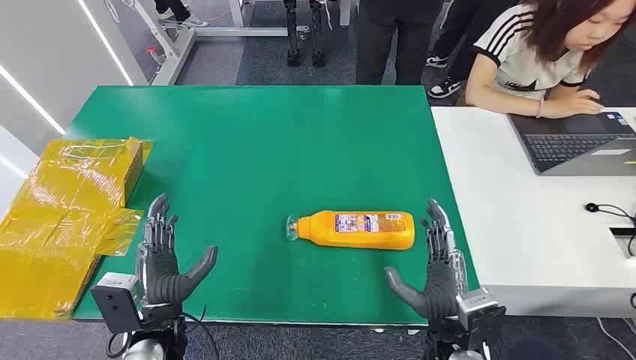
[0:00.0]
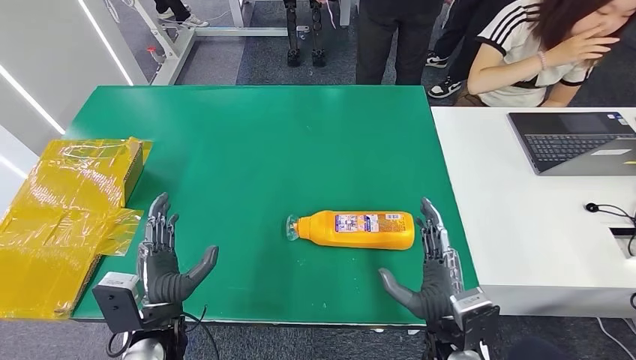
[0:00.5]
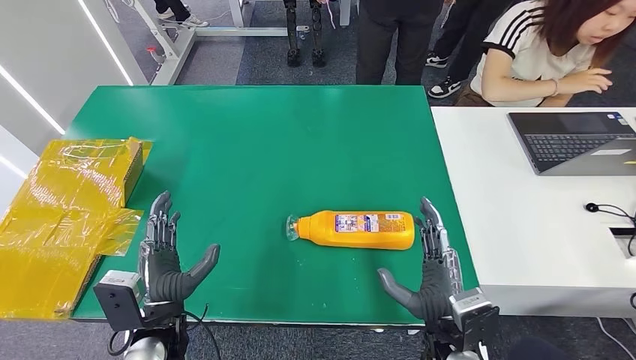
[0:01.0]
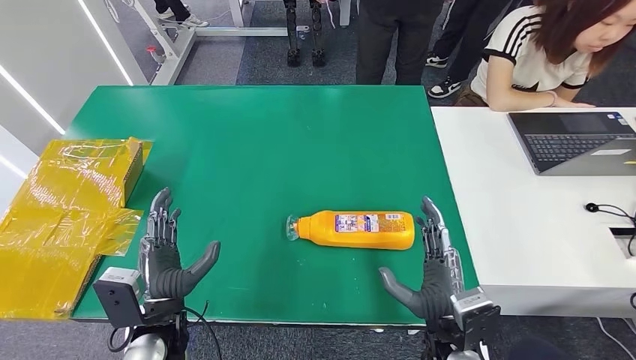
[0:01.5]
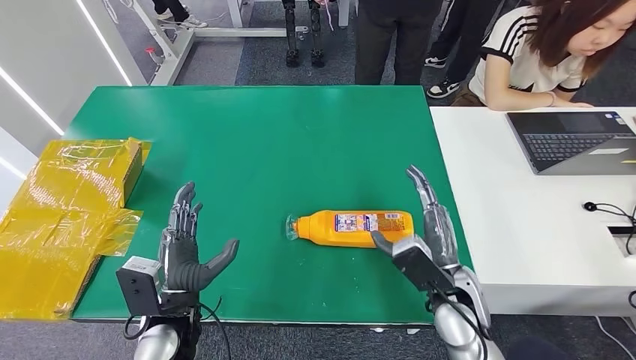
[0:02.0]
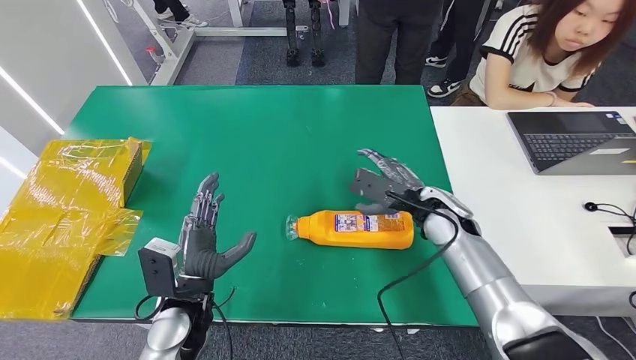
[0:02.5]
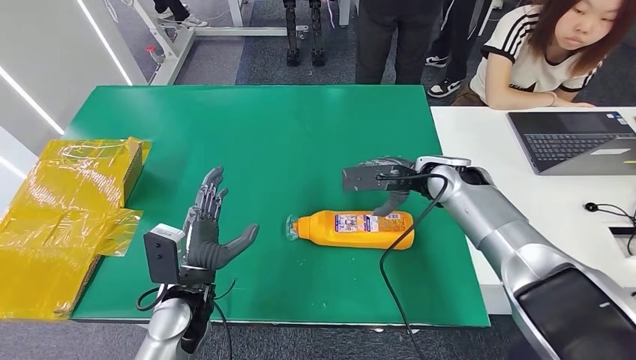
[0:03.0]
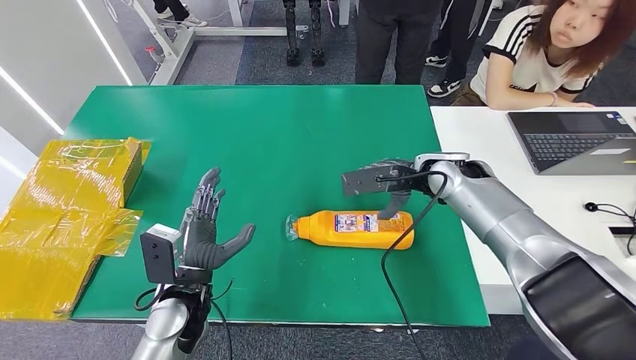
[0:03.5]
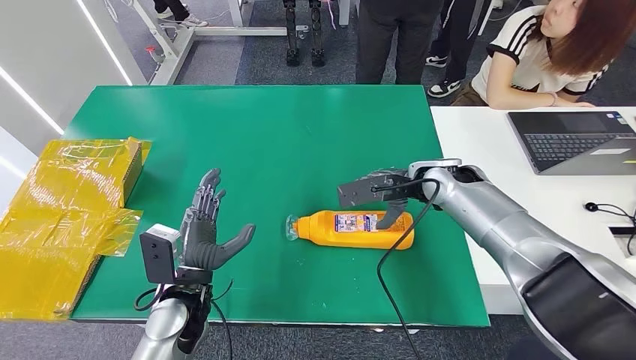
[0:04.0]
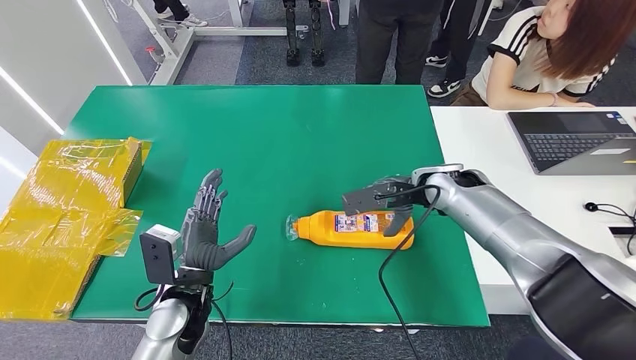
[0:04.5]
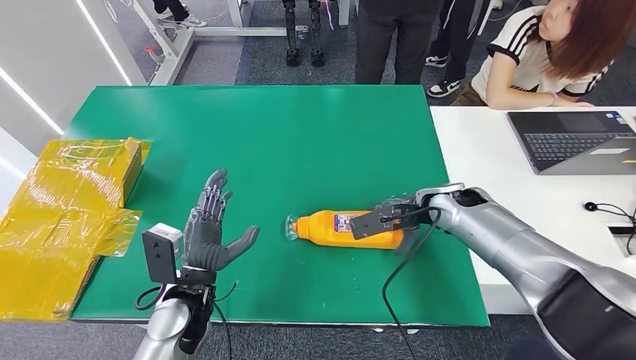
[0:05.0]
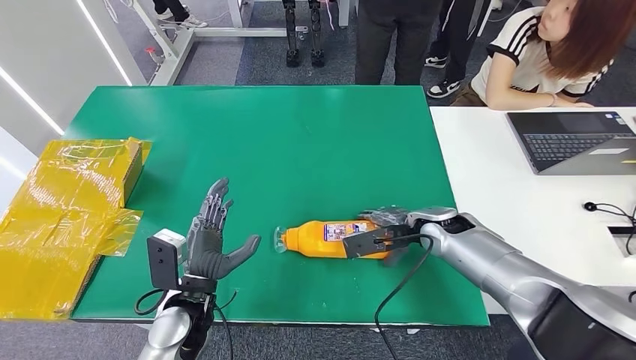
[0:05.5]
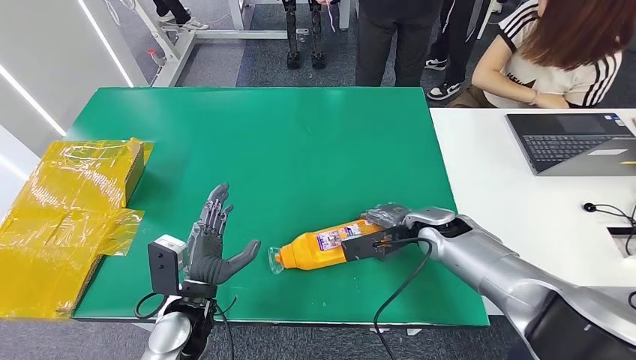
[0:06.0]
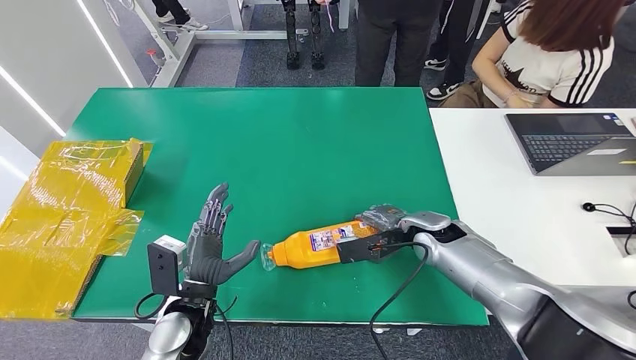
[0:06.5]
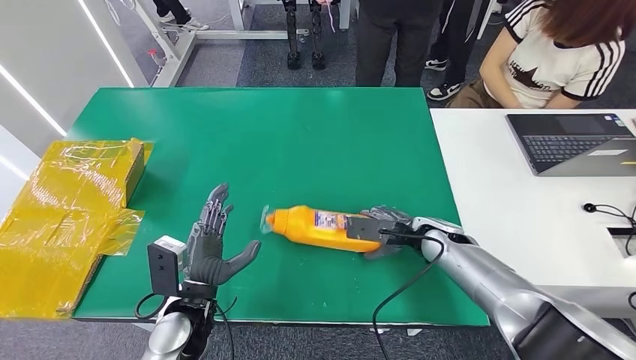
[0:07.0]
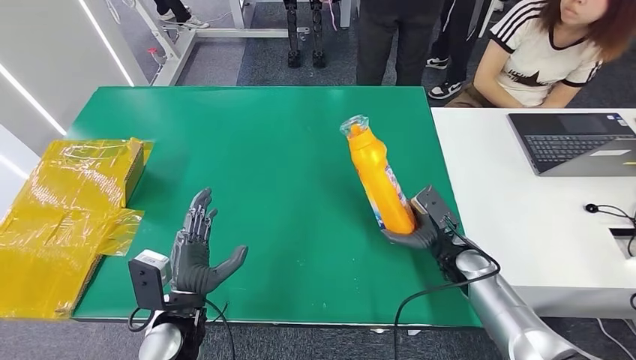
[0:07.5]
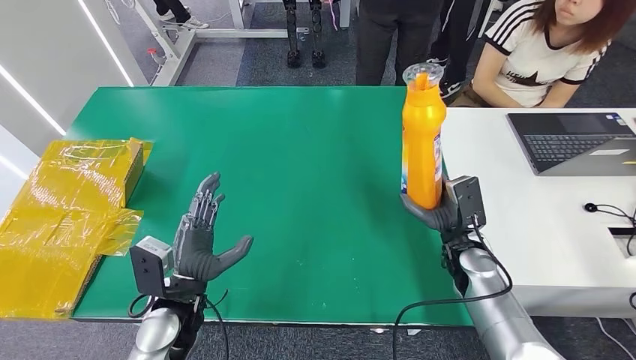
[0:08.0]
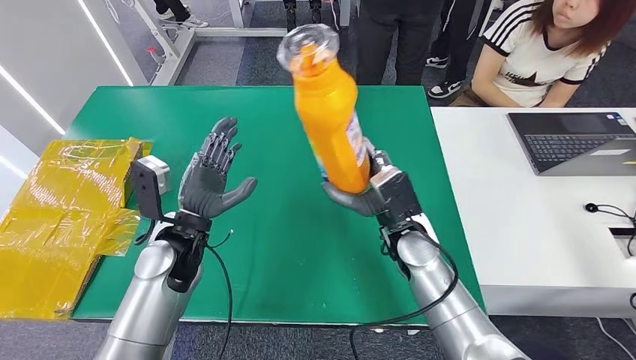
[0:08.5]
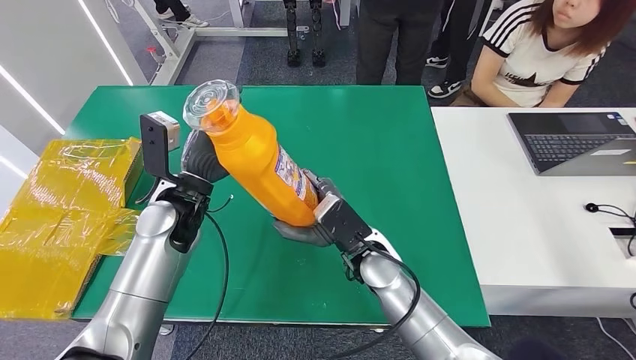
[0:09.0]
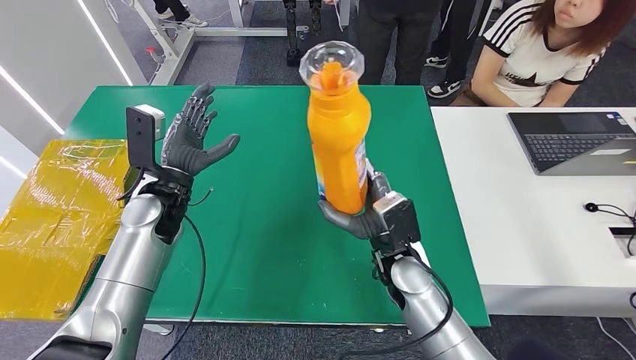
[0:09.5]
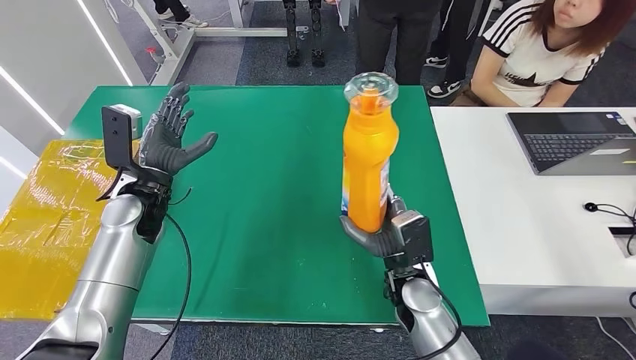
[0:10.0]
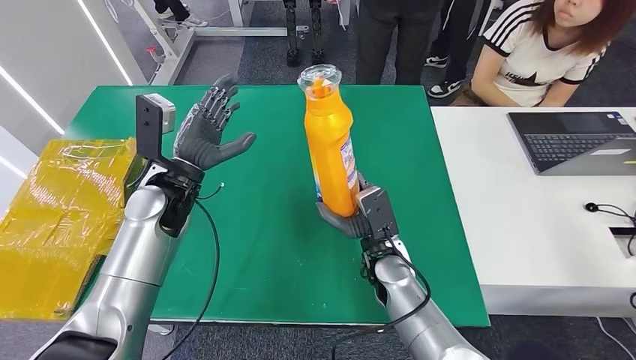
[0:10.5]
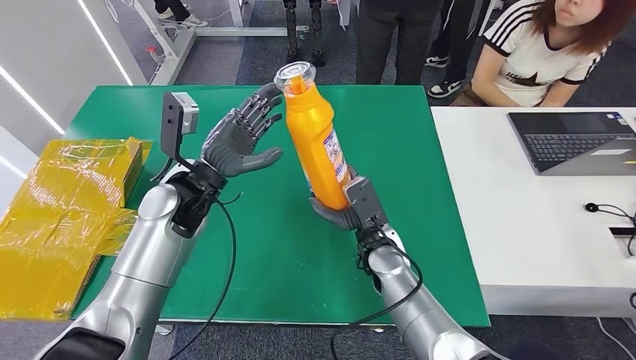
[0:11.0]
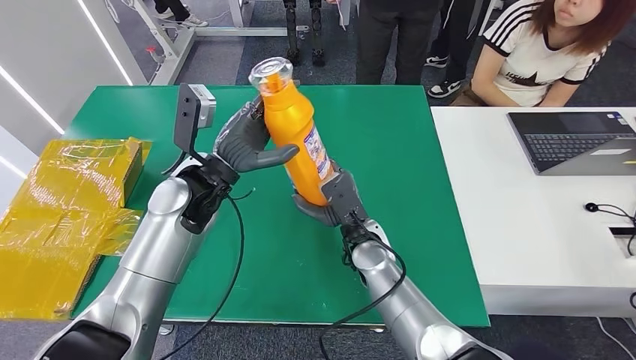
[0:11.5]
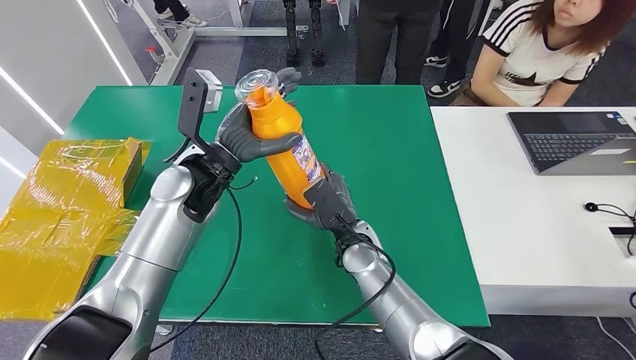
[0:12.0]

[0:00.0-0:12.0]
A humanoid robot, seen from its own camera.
Step, 0:00.0 to 0:07.5: Pick up the bottle from the table.

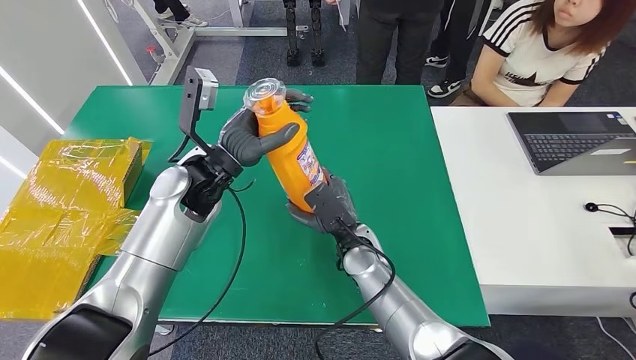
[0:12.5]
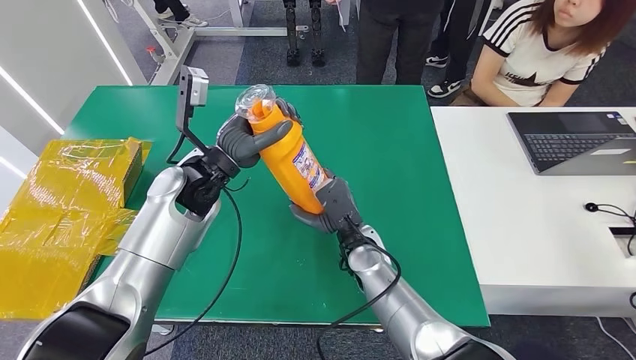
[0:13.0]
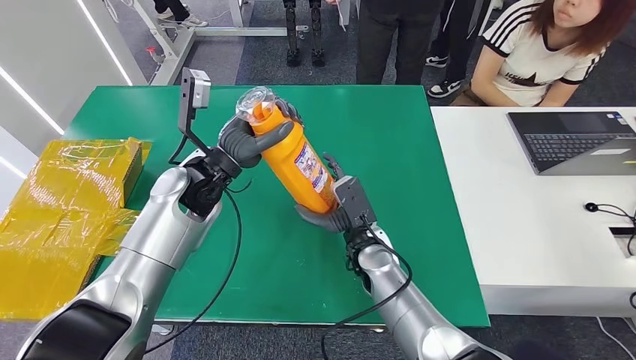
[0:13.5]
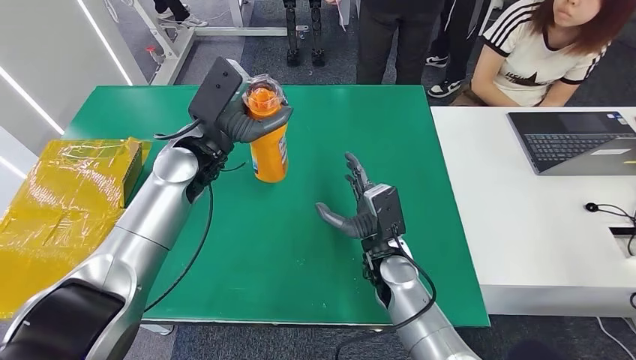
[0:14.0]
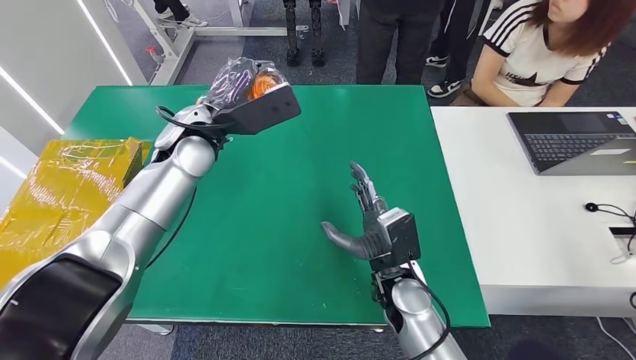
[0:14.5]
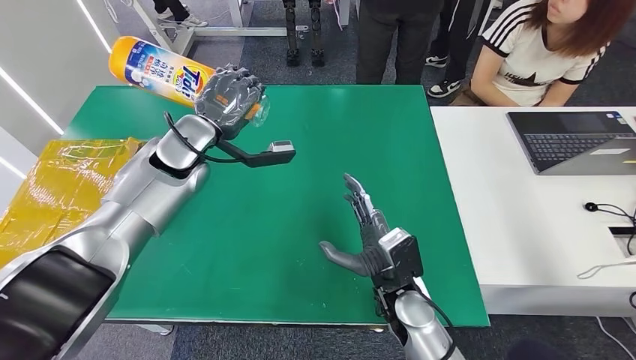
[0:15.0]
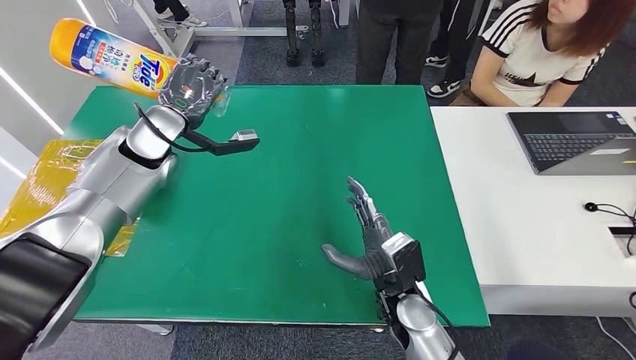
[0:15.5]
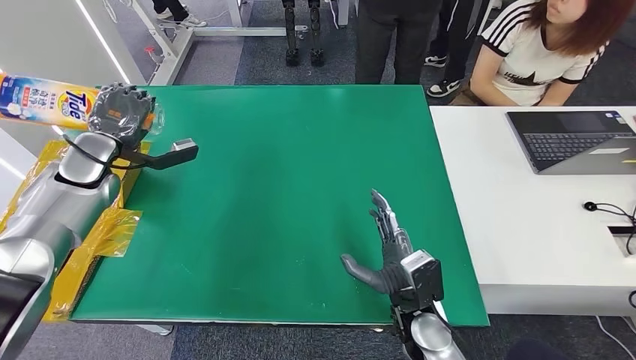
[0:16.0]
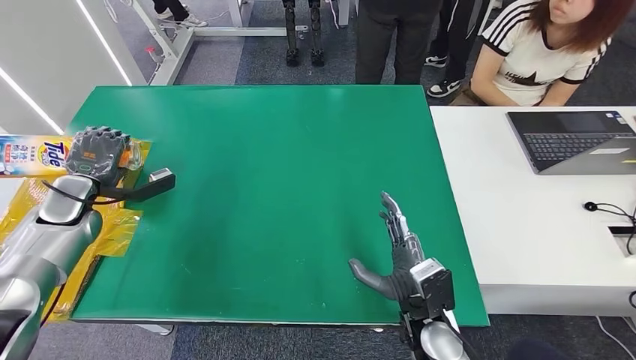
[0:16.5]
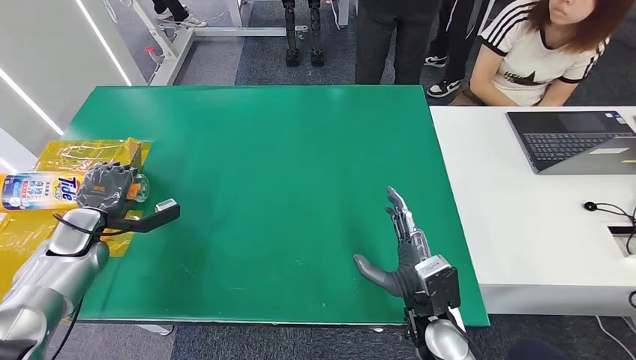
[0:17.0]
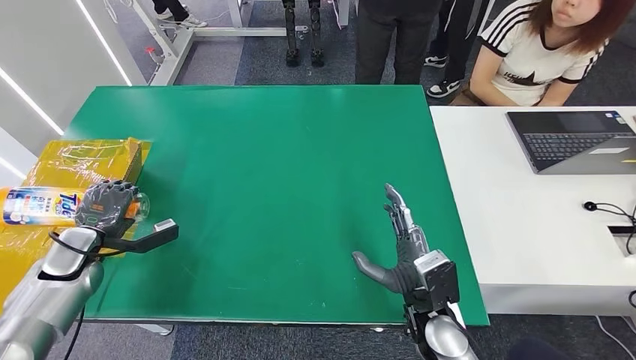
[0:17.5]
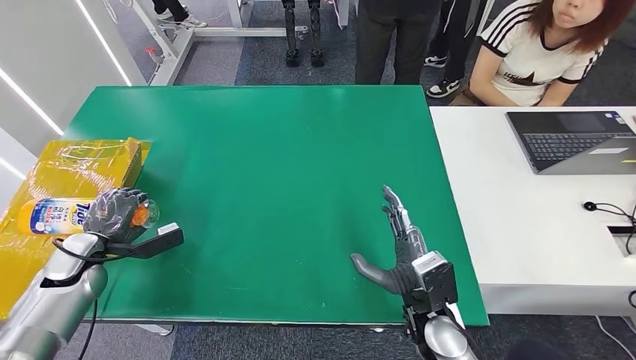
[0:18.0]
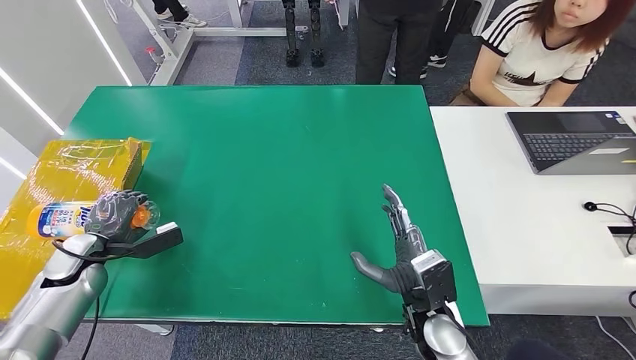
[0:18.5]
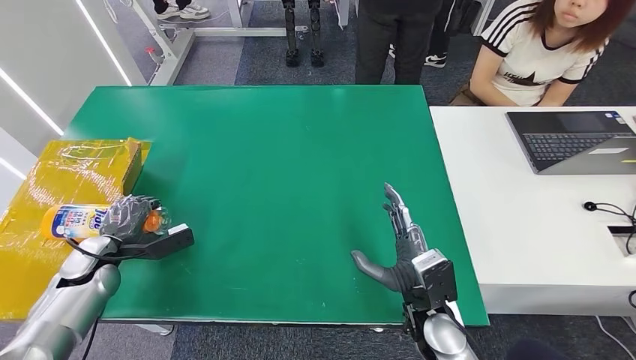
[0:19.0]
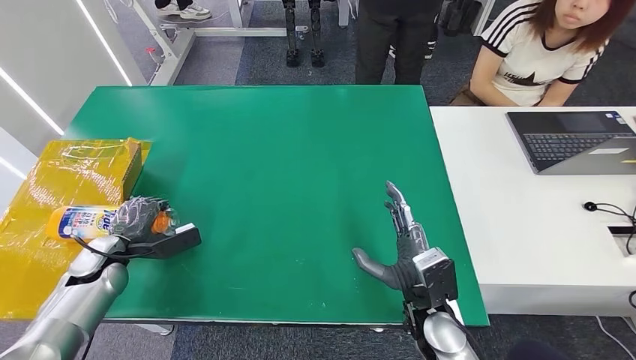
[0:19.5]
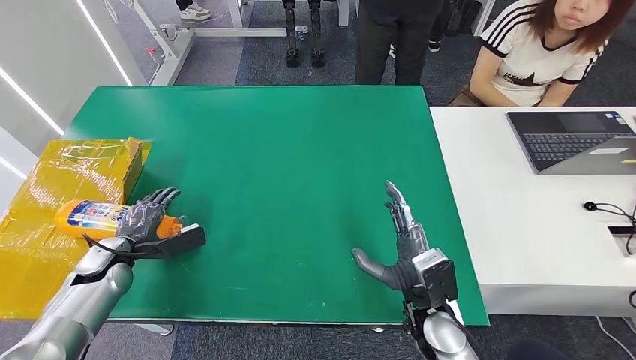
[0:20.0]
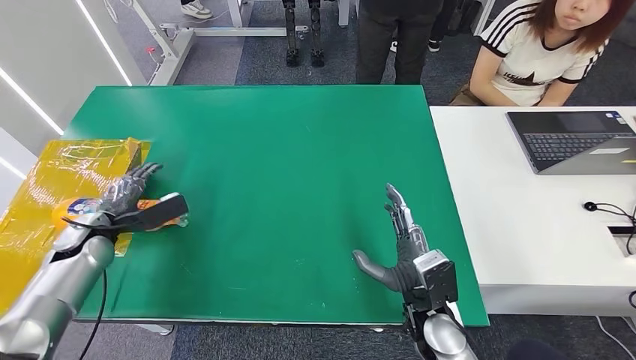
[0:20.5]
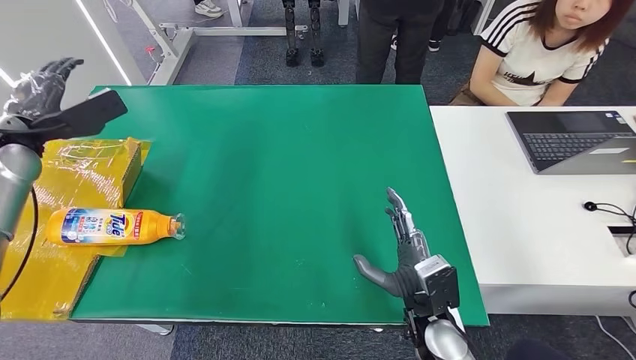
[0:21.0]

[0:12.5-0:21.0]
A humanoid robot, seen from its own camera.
Step, 0:12.5 to 0:21.0: Turn the bottle to the front side.
0:16.5 to 0:19.0: The left hand moves downward and backward, roughly 10 cm.
0:19.0 to 0:21.0: The left hand moves upward and forward, some 25 cm.
